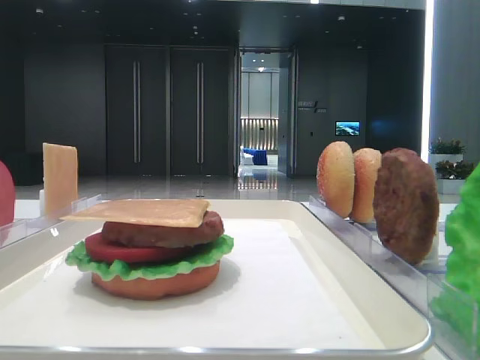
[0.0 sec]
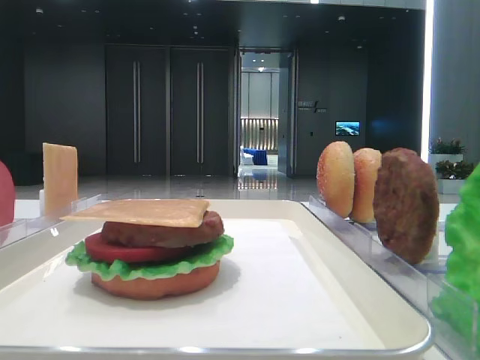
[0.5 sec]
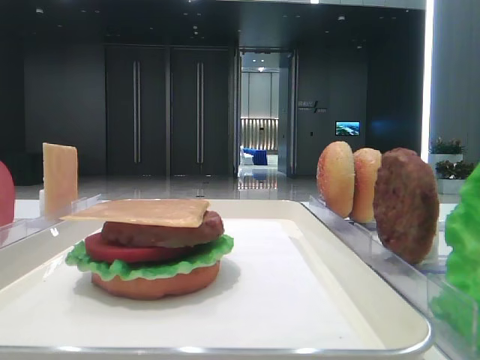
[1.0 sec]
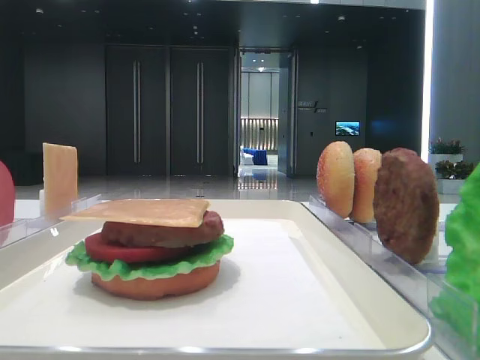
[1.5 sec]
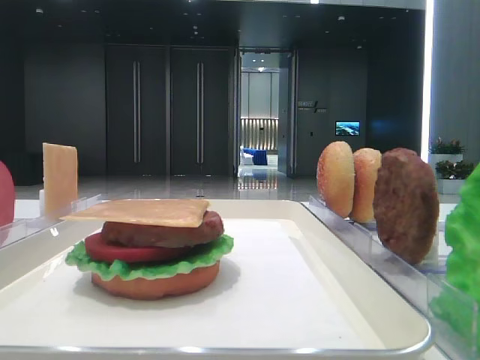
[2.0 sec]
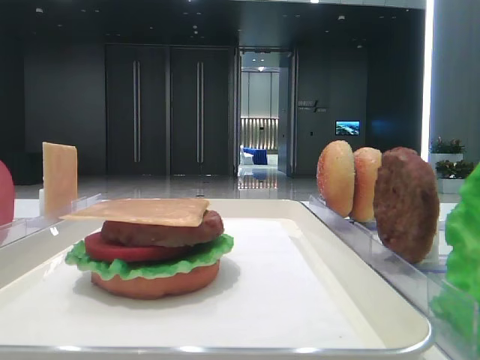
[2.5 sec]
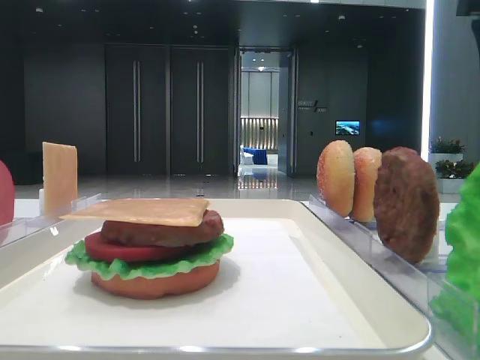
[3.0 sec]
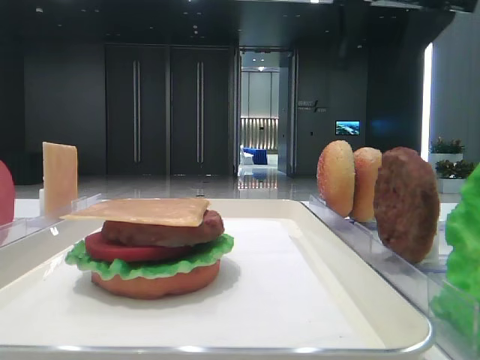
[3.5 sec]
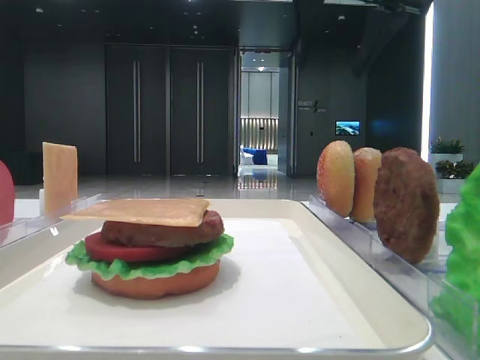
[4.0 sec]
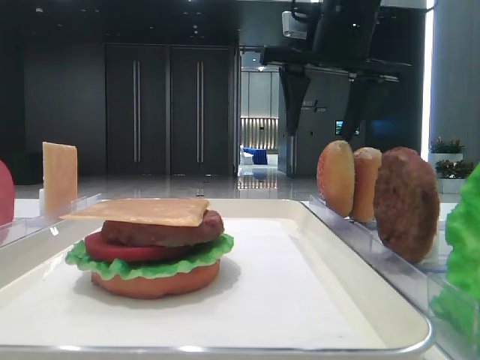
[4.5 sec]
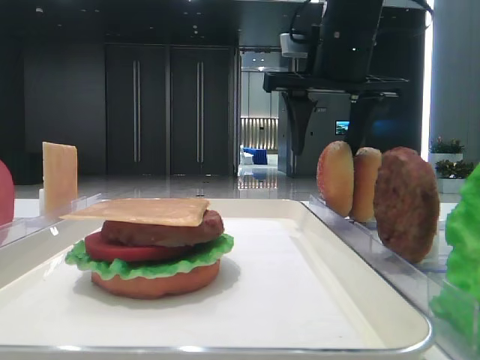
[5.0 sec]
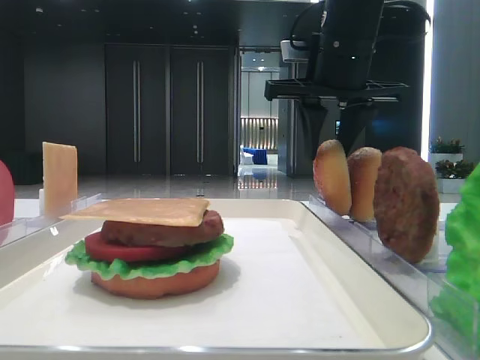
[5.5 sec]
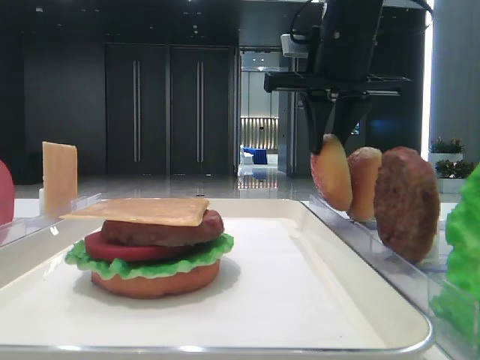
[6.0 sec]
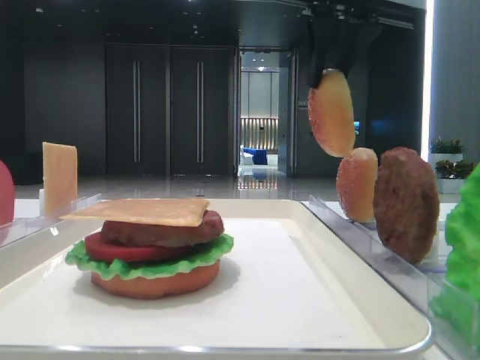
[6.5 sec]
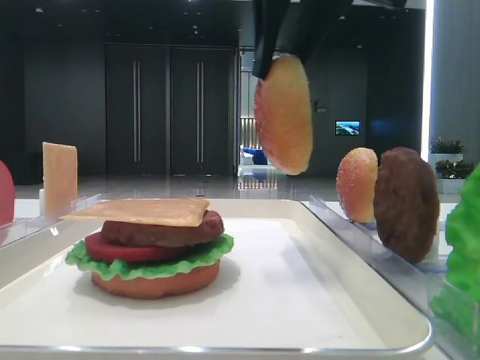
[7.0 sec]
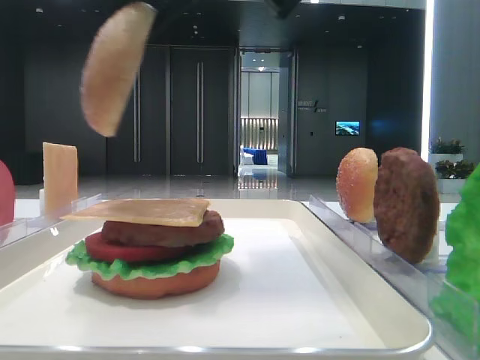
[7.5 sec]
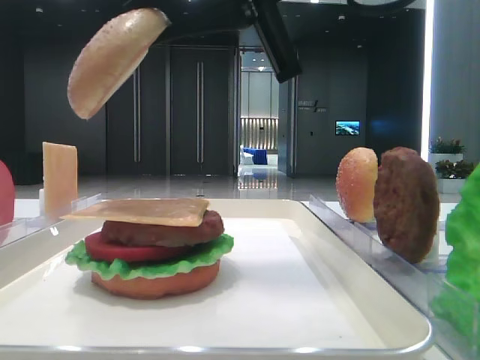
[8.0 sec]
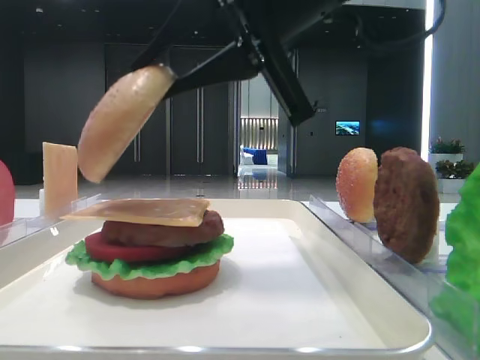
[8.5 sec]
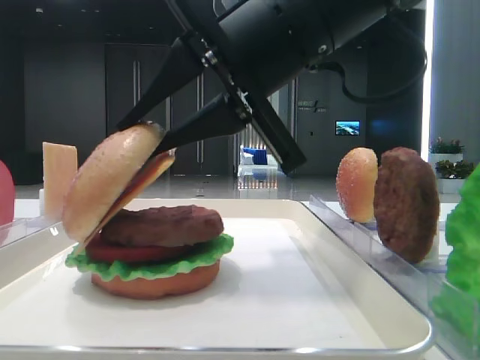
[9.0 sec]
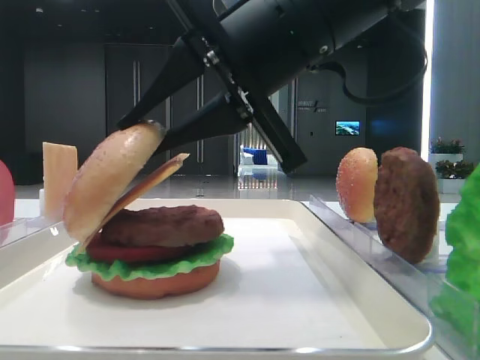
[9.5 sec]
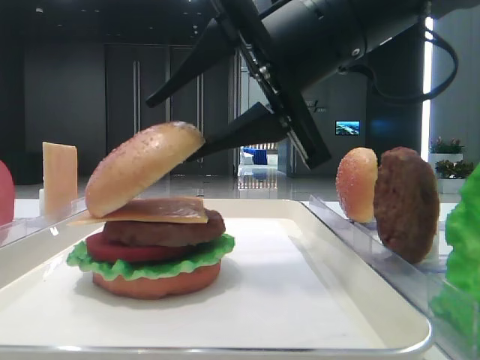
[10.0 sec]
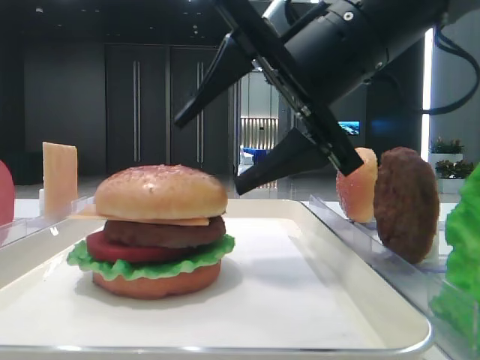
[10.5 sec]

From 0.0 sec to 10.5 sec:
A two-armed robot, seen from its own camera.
Step, from 0.0 sec to 6.0 sec: Pick up the top bread slice with the right hand.
Step, from 6.5 sec to 10.0 sec: Place the top bread slice on the cheese with the right hand.
From 2.0 sec to 4.0 sec: The right gripper travels forward and to the left by approximately 30 cm.
From 4.0 sec to 6.5 sec: The right gripper goes downward and returns, approximately 10 cm each way, and closes its fingers.
From 6.5 sec to 8.5 sec: The right gripper heads backward, downward and to the left, covering about 15 cm.
From 8.5 sec to 10.5 sec: The right gripper shifts by approximately 5 cm, and opens.

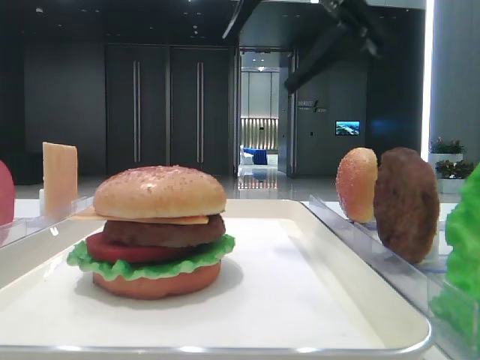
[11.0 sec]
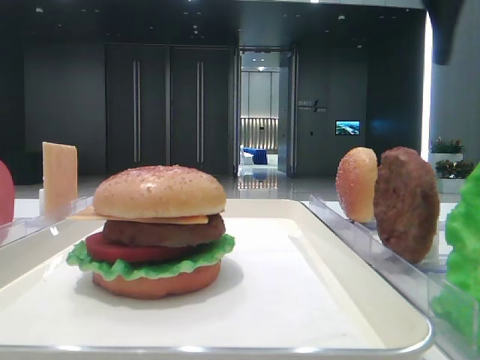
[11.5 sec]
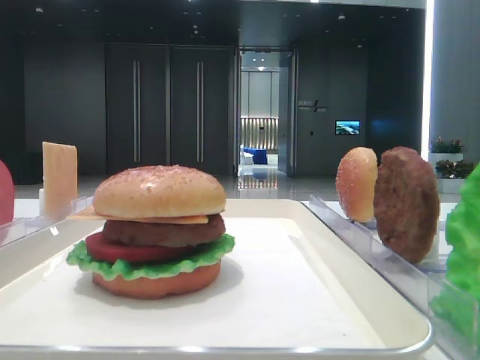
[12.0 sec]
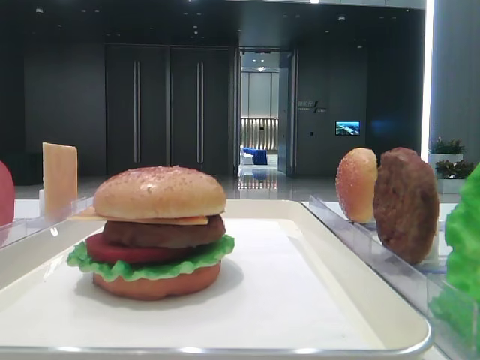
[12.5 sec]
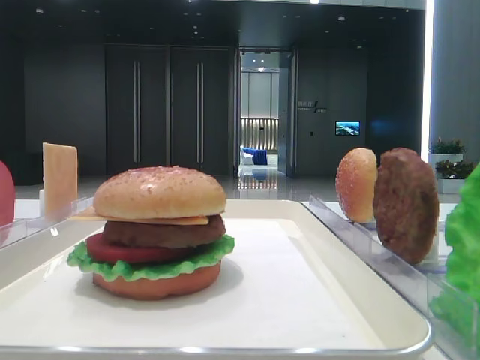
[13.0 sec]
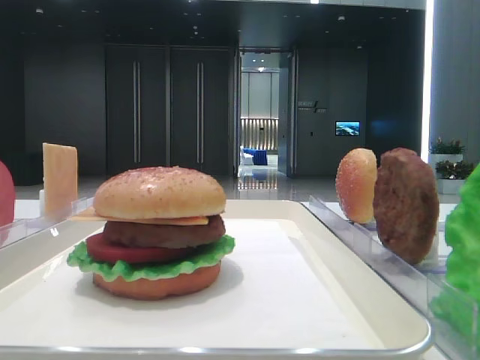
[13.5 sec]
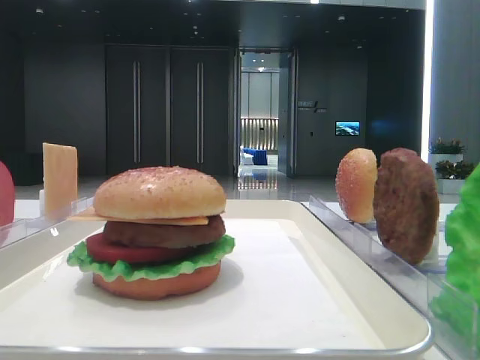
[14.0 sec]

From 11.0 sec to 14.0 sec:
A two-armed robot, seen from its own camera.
From 11.0 sec to 12.5 sec: The right gripper heads backward and to the right, covering roughly 30 cm.
